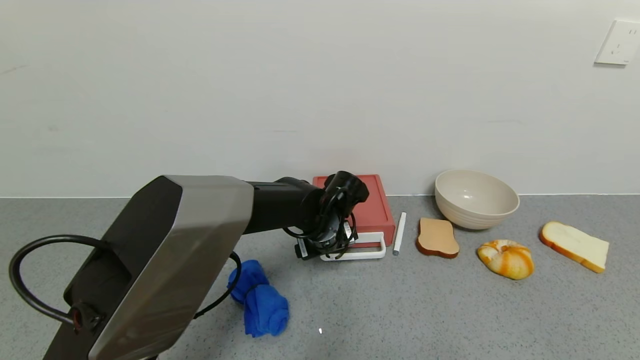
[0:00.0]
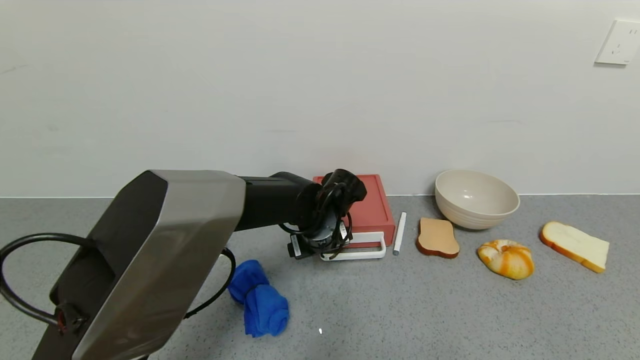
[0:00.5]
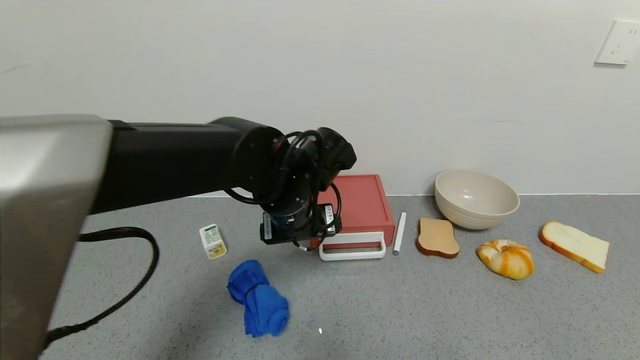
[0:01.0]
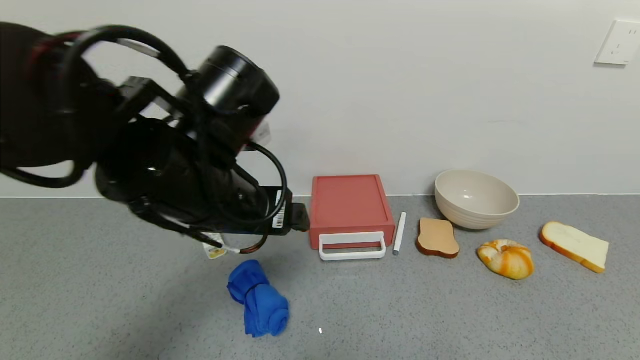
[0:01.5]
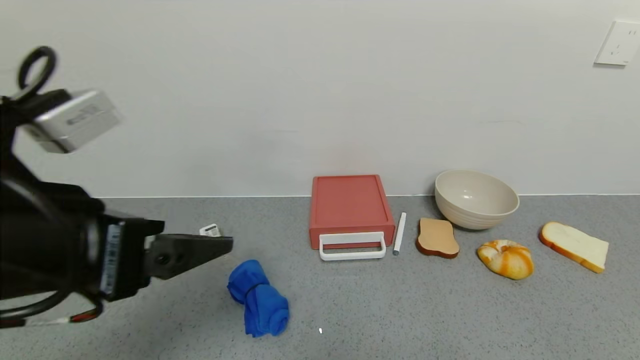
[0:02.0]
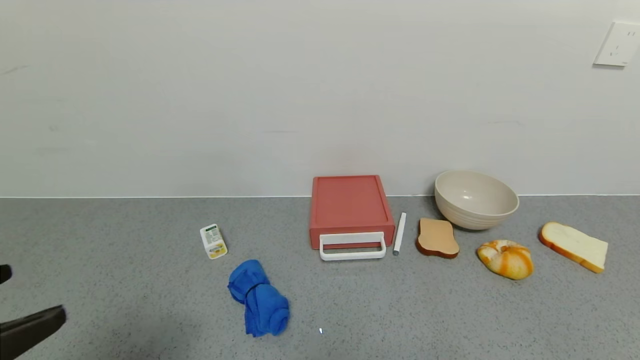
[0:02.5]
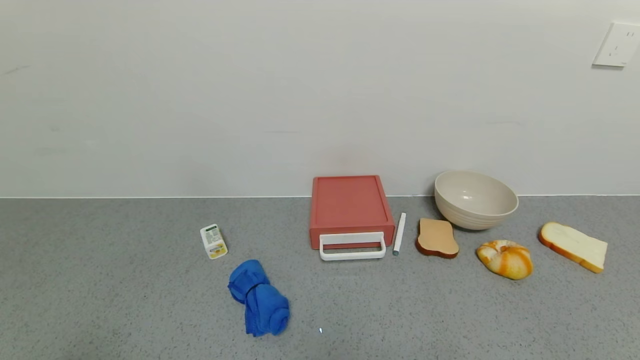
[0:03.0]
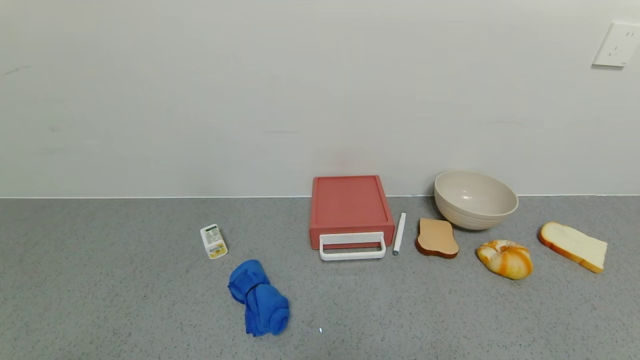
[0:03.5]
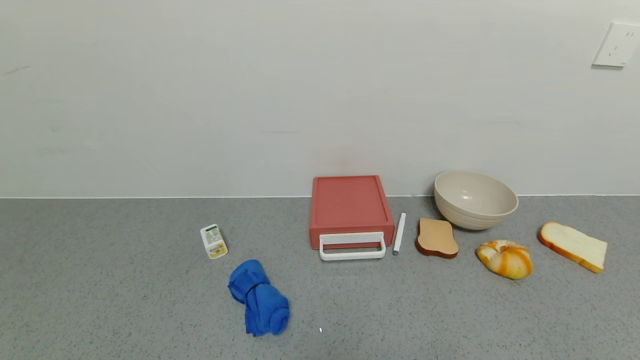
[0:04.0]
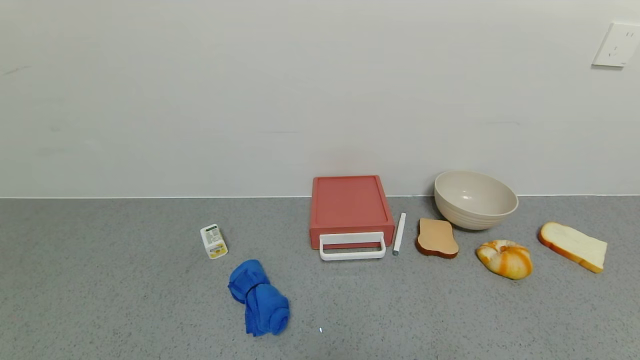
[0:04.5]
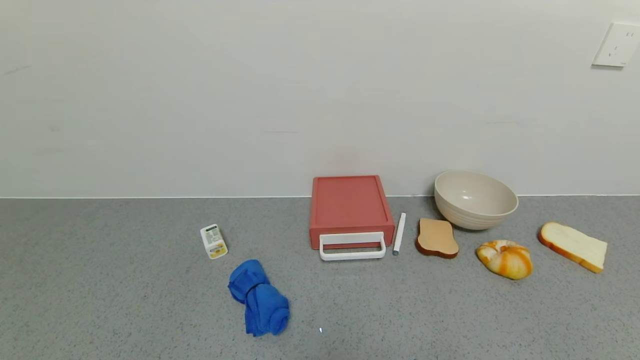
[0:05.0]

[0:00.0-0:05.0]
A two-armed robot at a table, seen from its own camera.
Task of the whole recording: use the gripper to open the drawer and close the red drawer.
0:00.0 to 0:02.5: The left gripper shifts about 50 cm backward, to the left and upward.
0:02.5 to 0:05.0: The left gripper goes roughly 20 cm downward.
